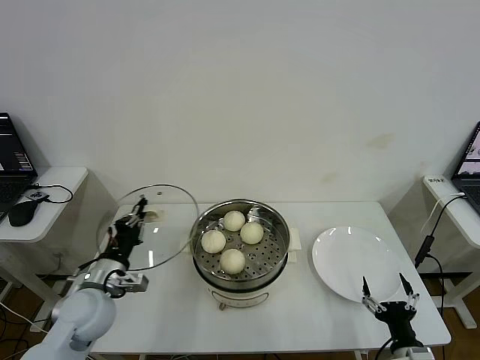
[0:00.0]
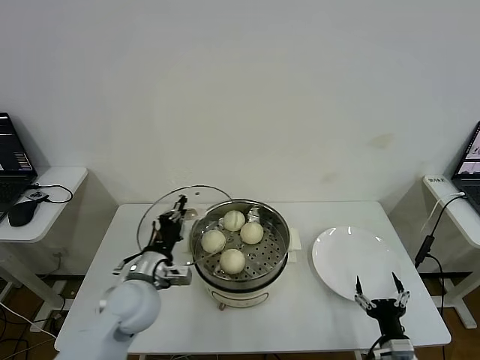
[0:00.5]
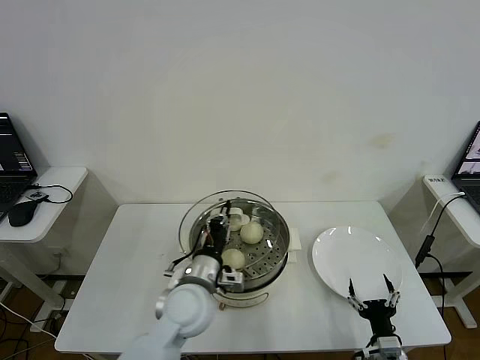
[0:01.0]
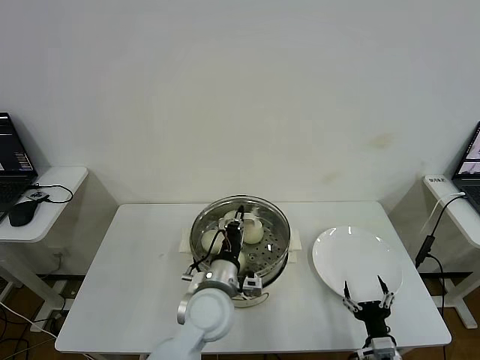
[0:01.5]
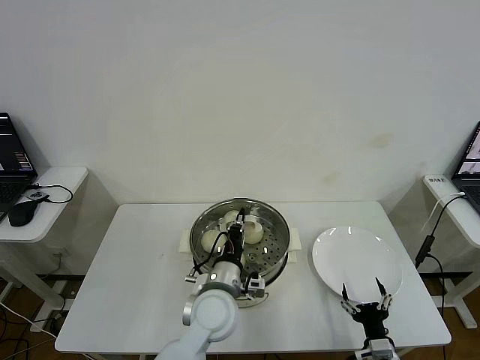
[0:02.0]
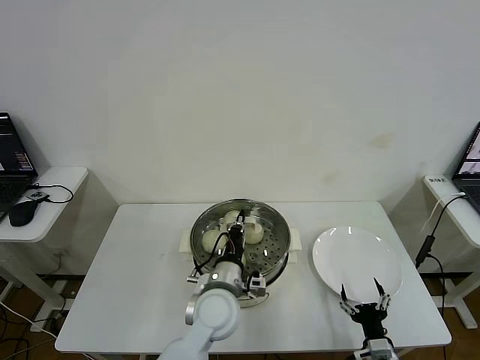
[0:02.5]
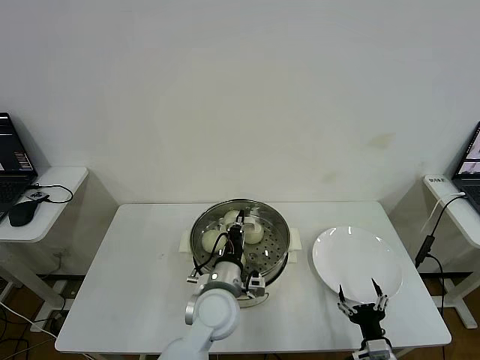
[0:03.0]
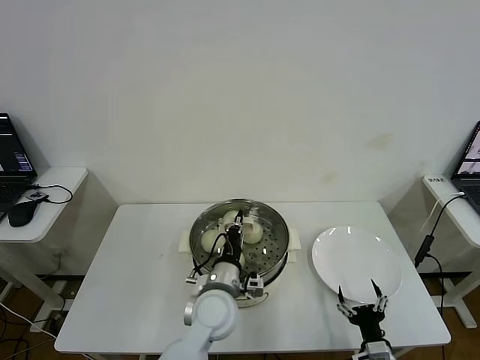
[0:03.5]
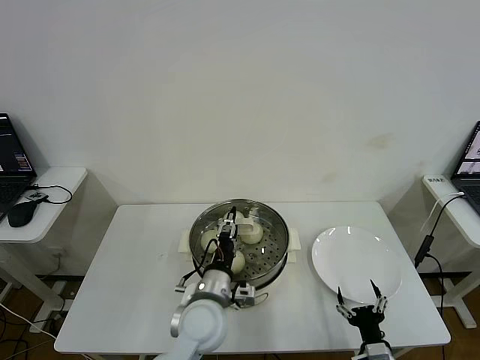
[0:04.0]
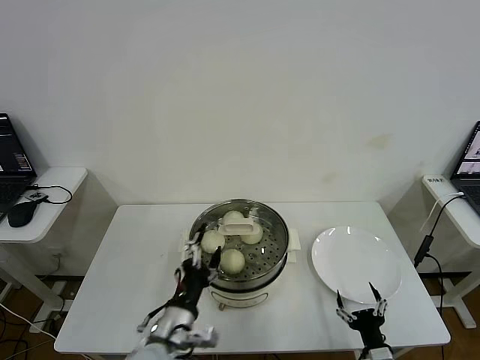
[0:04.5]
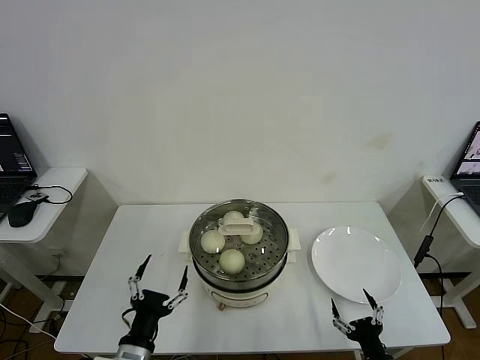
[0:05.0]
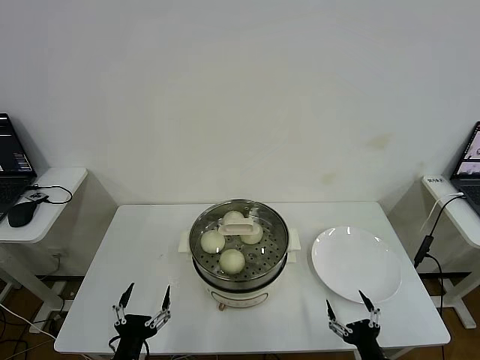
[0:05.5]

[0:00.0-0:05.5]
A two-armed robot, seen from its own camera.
Step, 0:00.0 to 0:03.5: Place the pot lid on the steamer with left gripper.
0:00.0 to 0:02.0: The right gripper moves approximately 5 cm. Meanwhile the left gripper shifts roughly 25 cm to the right.
0:02.0 to 0:03.5: The grippers make only small movements.
0:03.5 to 0:05.5: The left gripper is displaced to the left and backward by some 25 cm, and opens. Meanwhile the right gripper ends up approximately 5 cm from where it was.

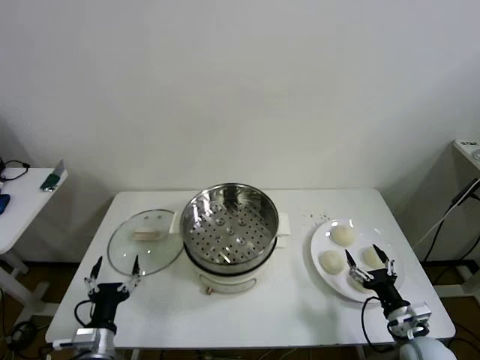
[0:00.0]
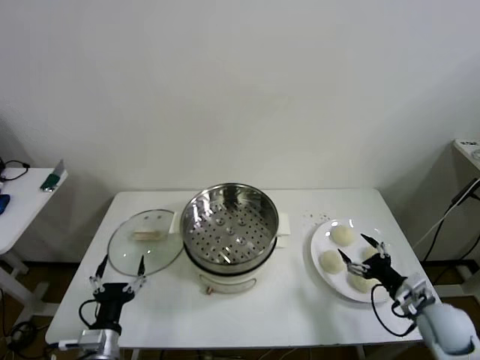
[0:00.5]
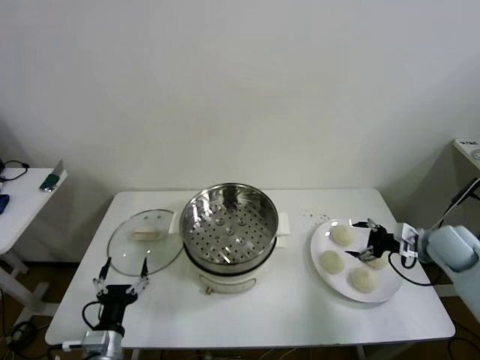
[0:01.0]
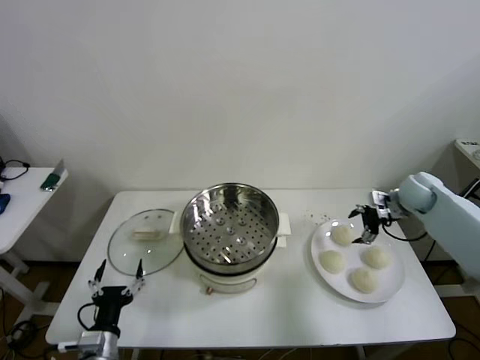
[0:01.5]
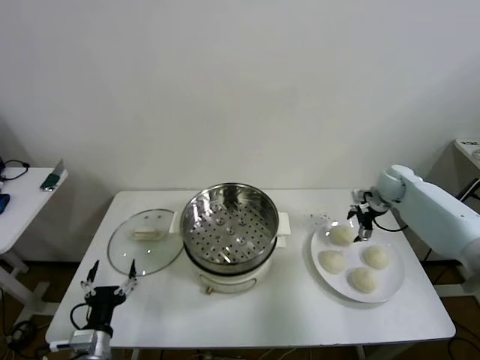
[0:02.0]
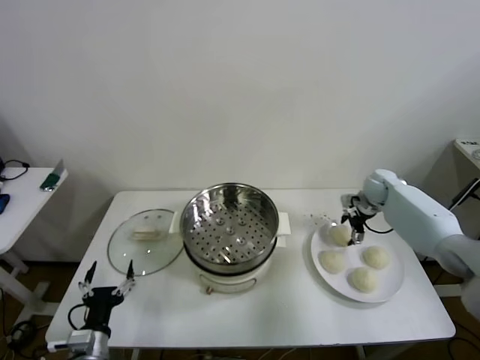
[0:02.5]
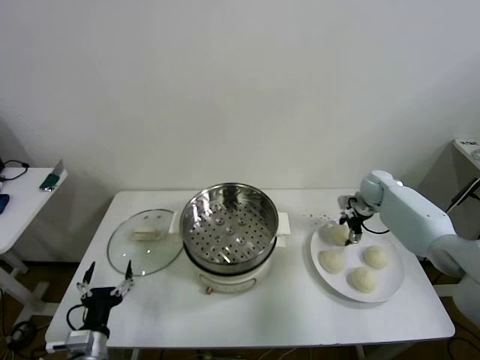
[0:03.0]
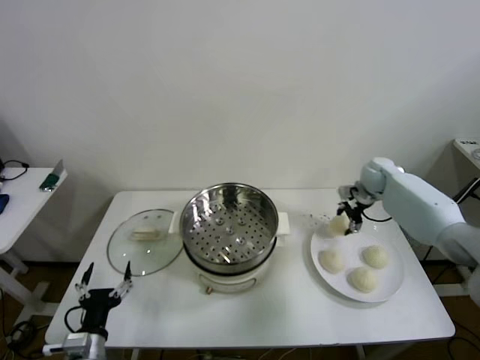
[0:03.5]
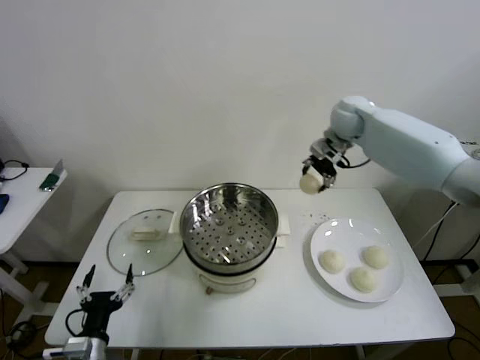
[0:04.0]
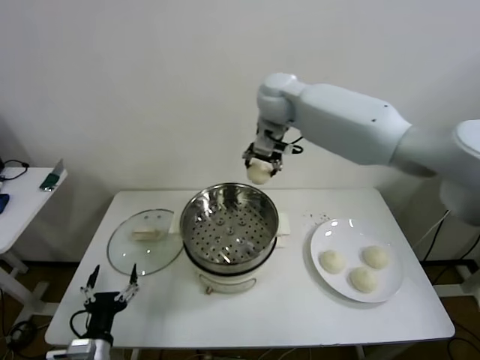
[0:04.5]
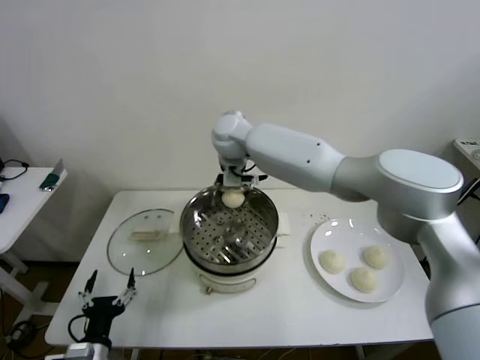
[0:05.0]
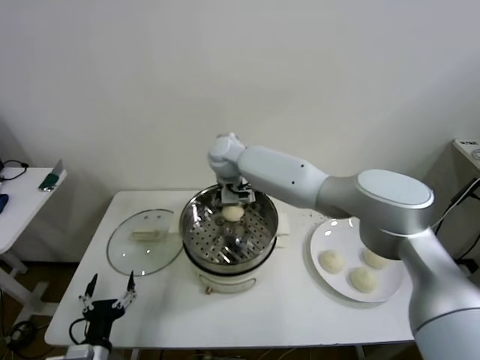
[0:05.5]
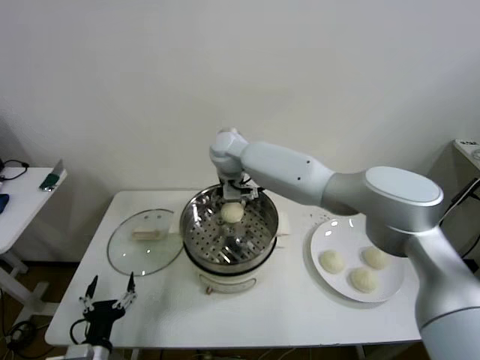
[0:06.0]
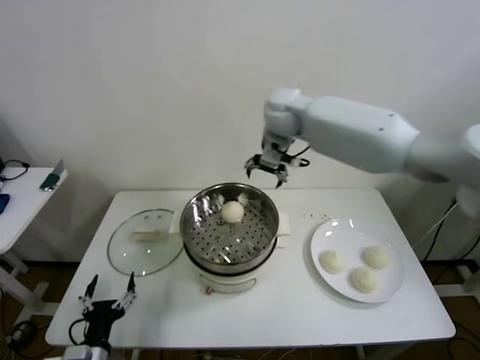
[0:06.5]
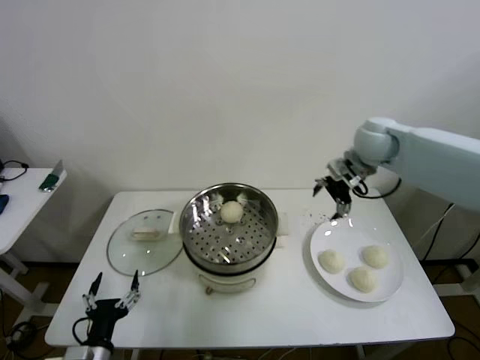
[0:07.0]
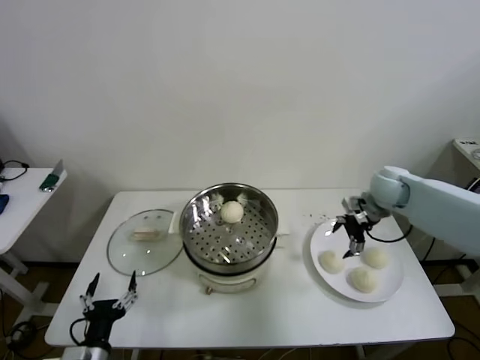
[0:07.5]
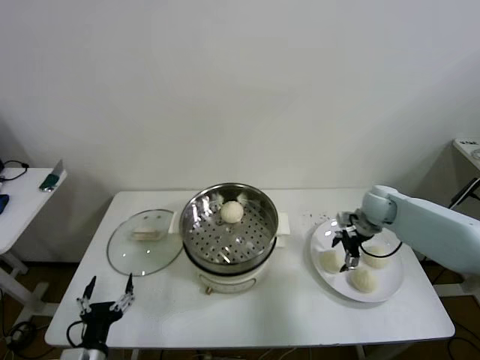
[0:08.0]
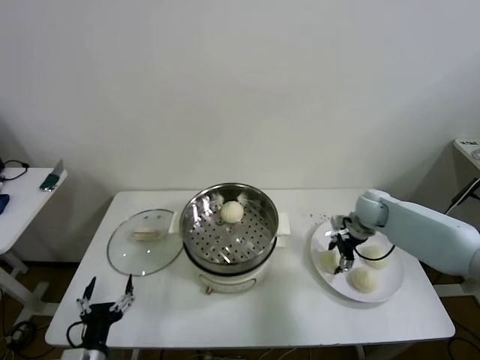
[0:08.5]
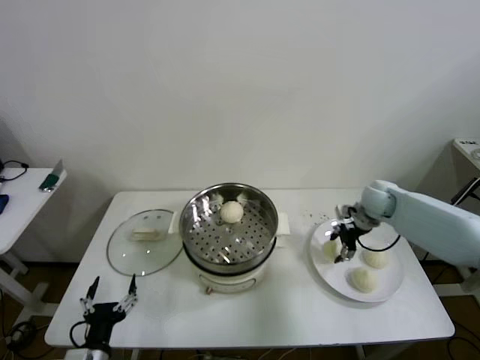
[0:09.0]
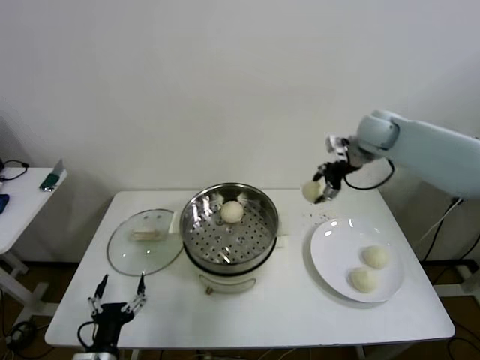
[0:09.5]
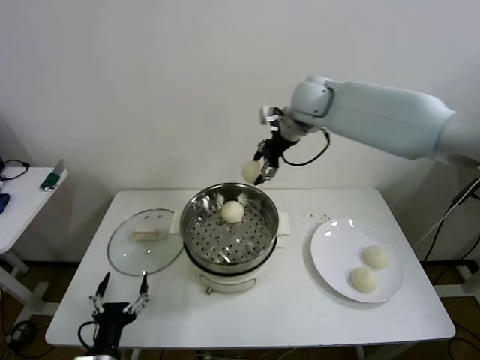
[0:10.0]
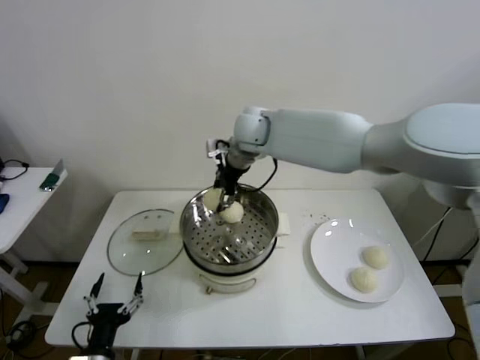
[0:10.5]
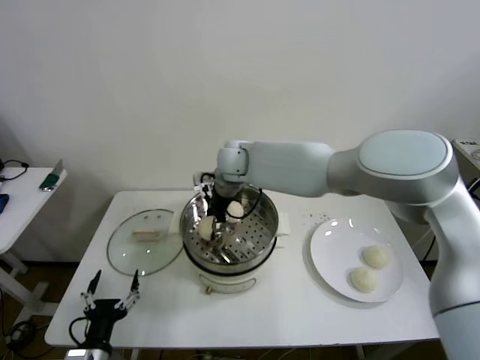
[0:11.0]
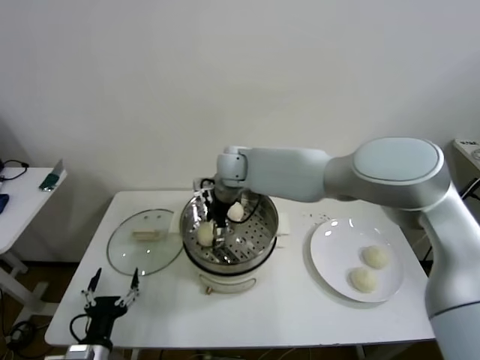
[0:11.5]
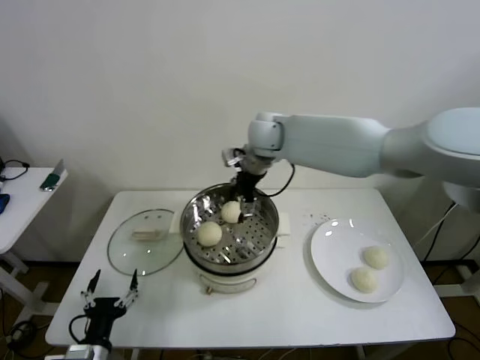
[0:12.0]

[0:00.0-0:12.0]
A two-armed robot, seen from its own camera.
Step, 0:00.0 to 0:03.0: Grasp the baozi in the plate with right gripper.
Step, 0:03.5 to 0:06.0: Place the baozi on the steamer with right gripper.
Step, 0:06.5 to 0:08.5: Grasp the baozi in the plate with right gripper.
Step, 0:09.0 to 0:11.5: Place the baozi on the steamer with right gripper.
0:02.0 to 0:04.0: The right gripper goes roughly 25 cm upward and to the left, and closes up.
0:04.0 to 0:06.0: The right gripper moves to the left, approximately 30 cm, and opens its fingers.
0:06.0 to 0:08.0: The right gripper shifts some 40 cm to the right.
0:08.0 to 0:10.0: The right gripper heads upward and to the left, covering approximately 35 cm, and closes.
0:10.0 to 0:12.0: The right gripper goes some 10 cm to the left and downward, and opens.

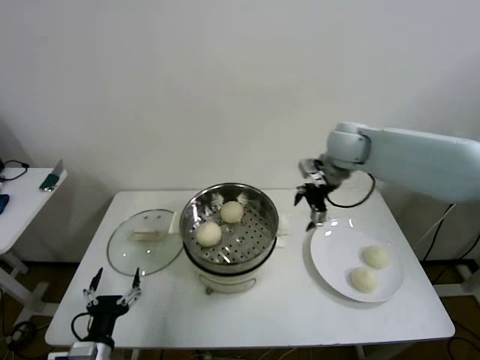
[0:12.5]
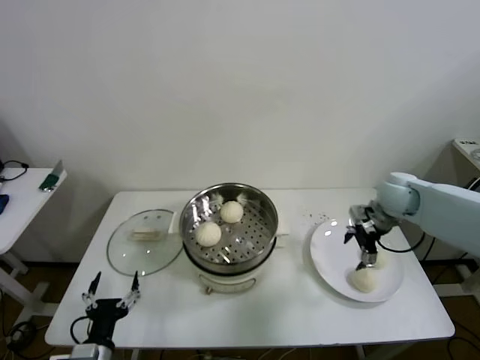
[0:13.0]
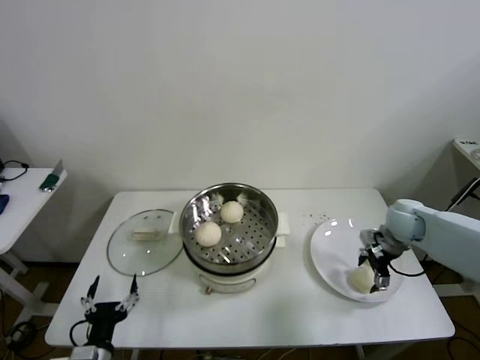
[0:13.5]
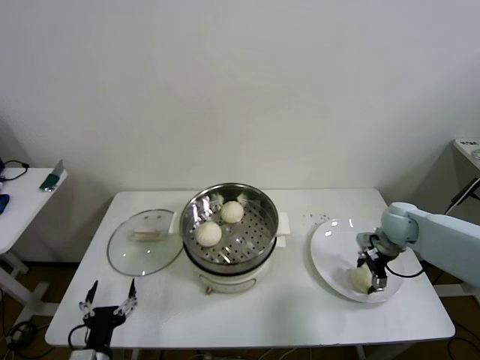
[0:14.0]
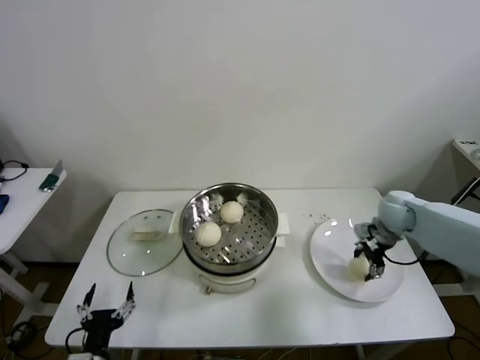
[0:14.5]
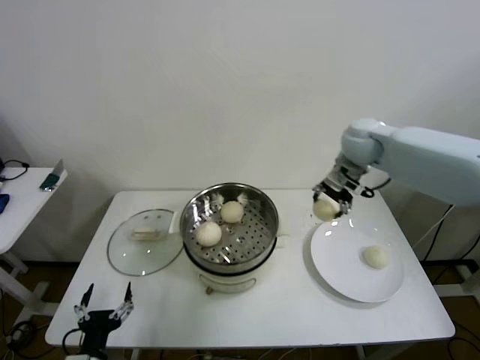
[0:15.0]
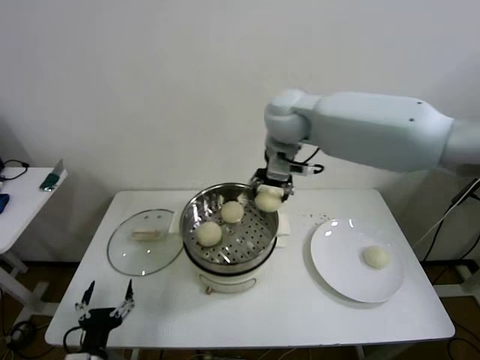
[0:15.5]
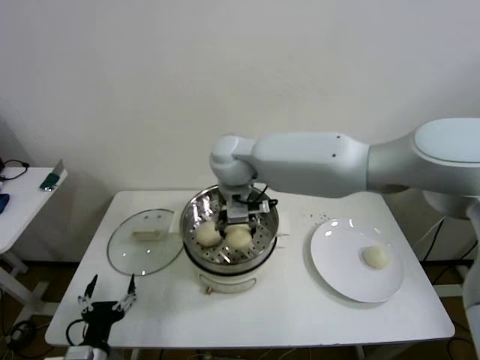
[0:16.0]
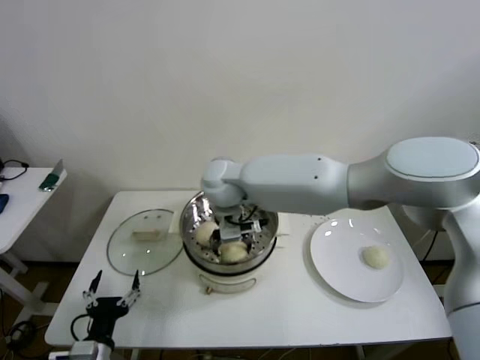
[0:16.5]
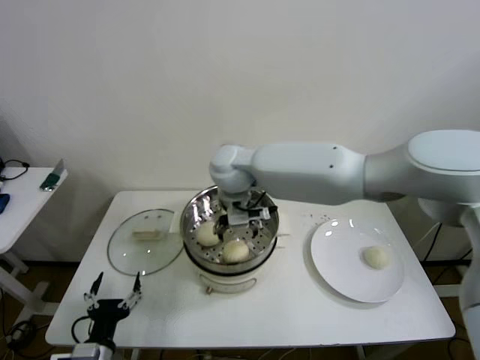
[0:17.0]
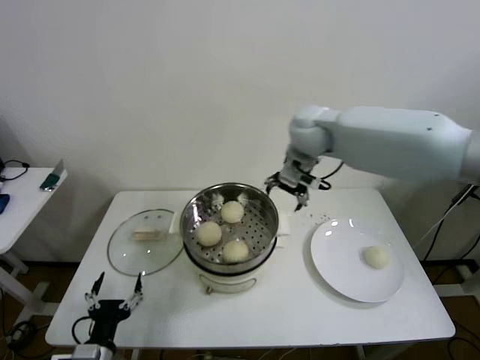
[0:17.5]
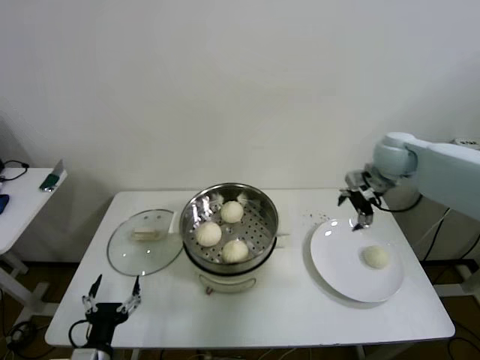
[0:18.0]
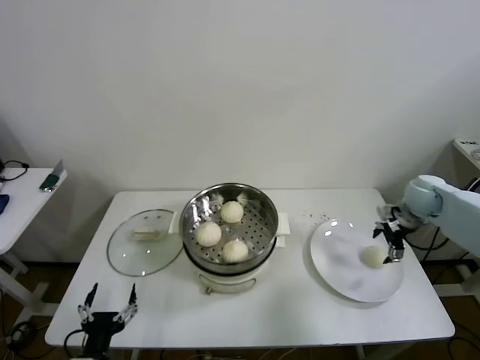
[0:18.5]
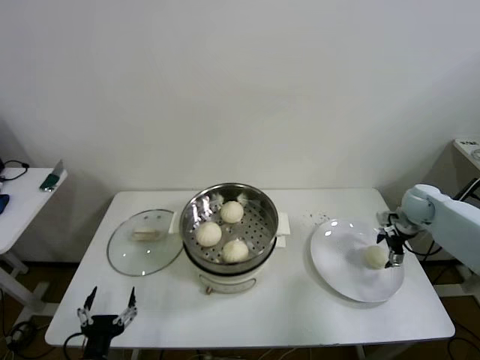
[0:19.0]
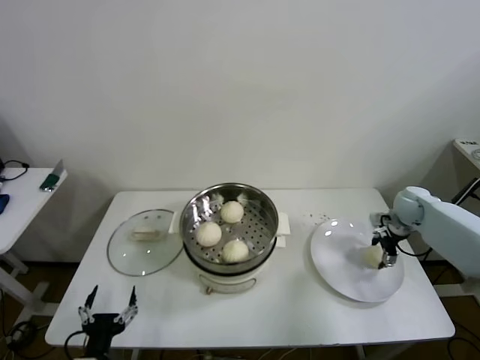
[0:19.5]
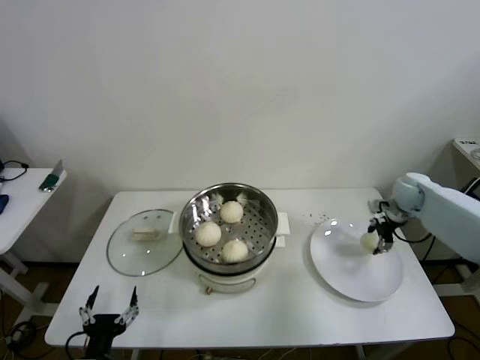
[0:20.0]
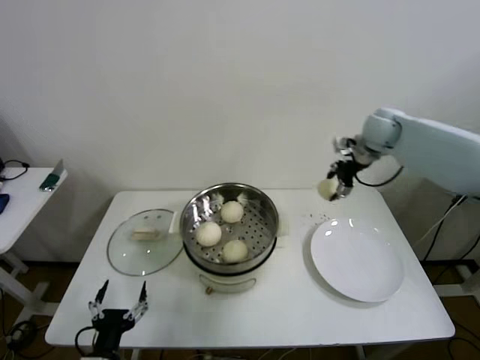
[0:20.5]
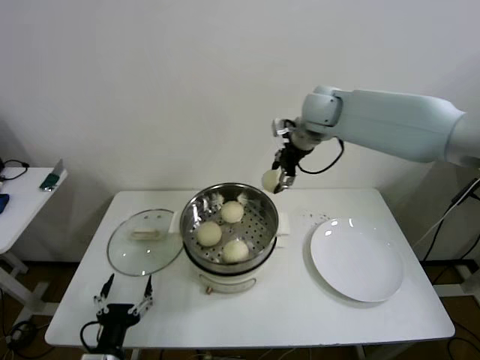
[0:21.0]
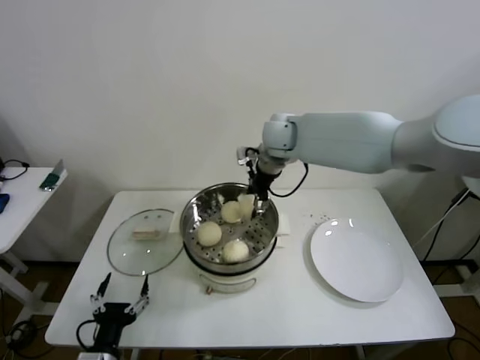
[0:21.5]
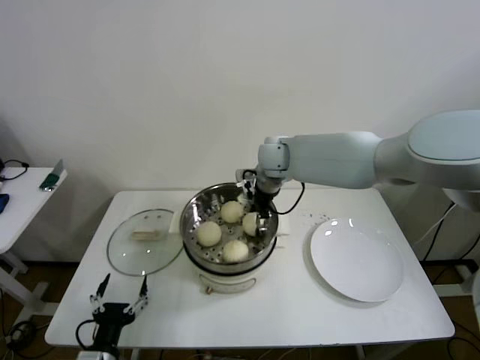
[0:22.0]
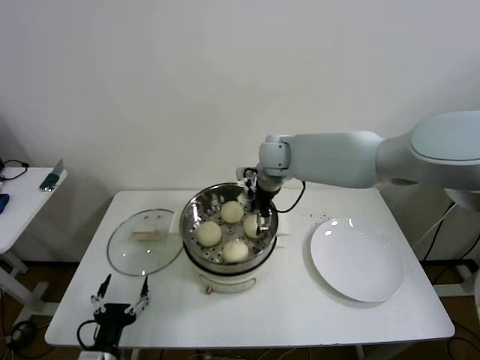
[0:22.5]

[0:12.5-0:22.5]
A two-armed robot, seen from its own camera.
Step, 0:12.5 to 0:14.0: Grasp the baozi in the plate with right gripper.
Step, 0:14.5 to 0:17.0: Place the baozi on the steamer with right gripper.
Step, 0:17.5 to 0:19.5: Grasp the baozi in the plate with right gripper.
0:12.5 to 0:14.5: The right gripper goes about 25 cm downward and to the right, and closes its fingers.
0:14.5 to 0:16.5: The right gripper heads to the left, covering some 40 cm, and opens up.
0:16.5 to 0:18.5: The right gripper goes roughly 50 cm to the right.
0:18.5 to 0:20.5: The right gripper moves upward, to the left and forward, approximately 20 cm, and closes.
0:20.5 to 0:22.5: The right gripper shifts about 25 cm to the left, and opens up.
